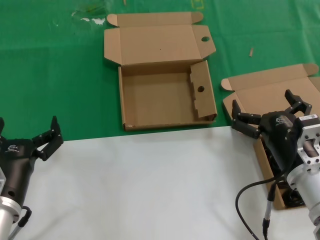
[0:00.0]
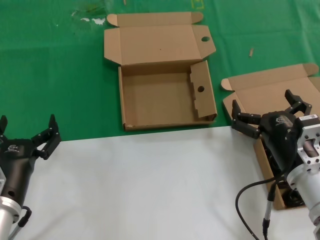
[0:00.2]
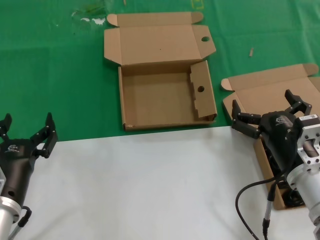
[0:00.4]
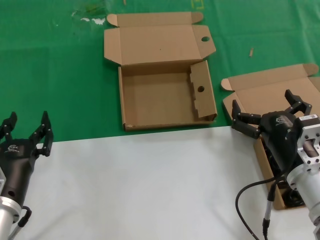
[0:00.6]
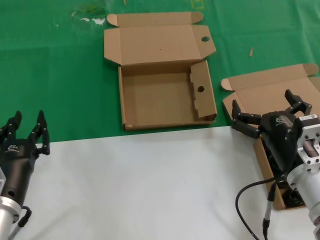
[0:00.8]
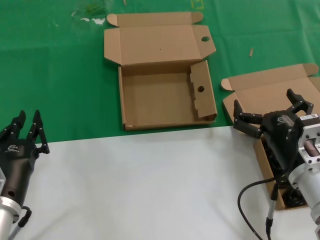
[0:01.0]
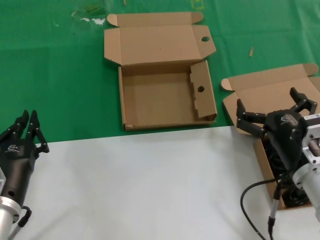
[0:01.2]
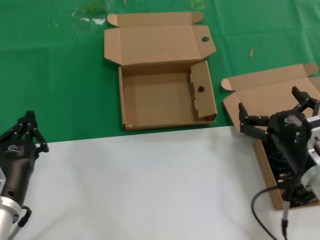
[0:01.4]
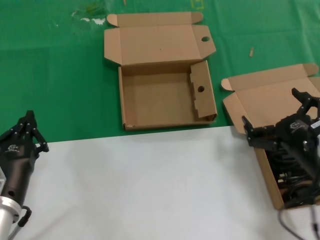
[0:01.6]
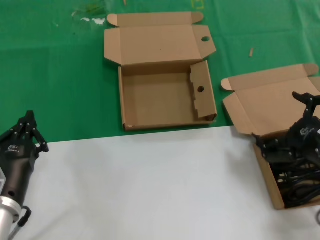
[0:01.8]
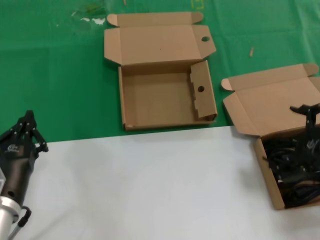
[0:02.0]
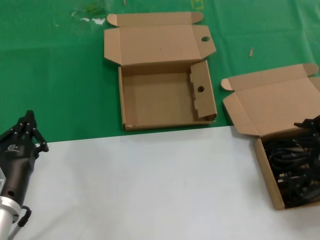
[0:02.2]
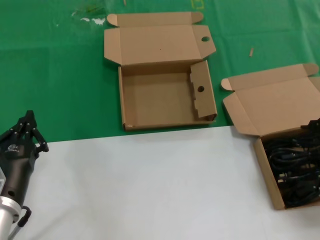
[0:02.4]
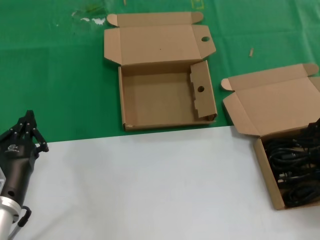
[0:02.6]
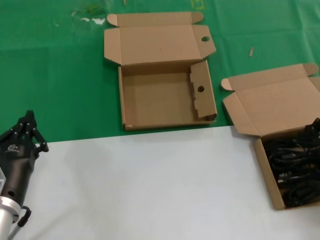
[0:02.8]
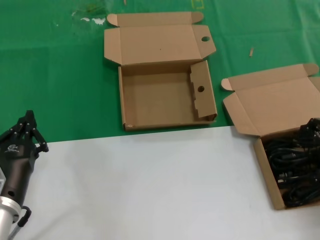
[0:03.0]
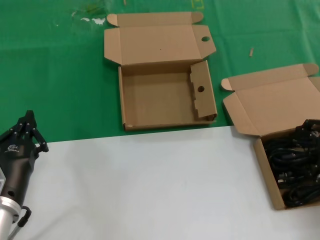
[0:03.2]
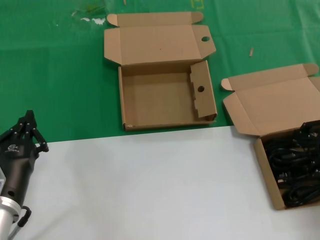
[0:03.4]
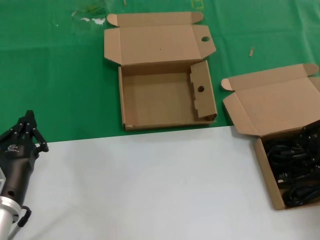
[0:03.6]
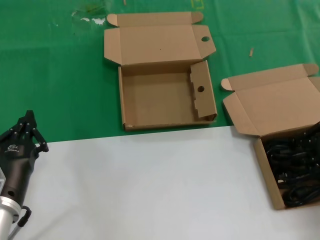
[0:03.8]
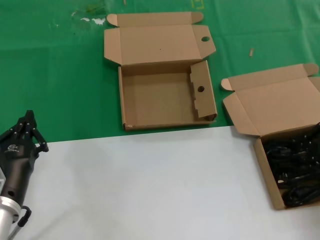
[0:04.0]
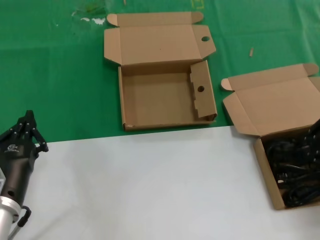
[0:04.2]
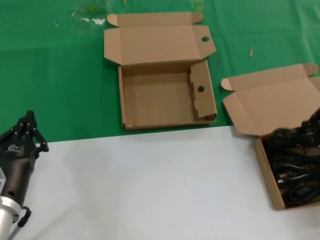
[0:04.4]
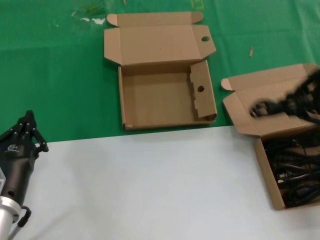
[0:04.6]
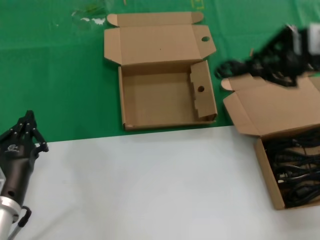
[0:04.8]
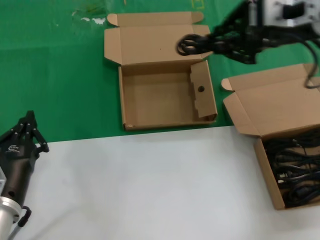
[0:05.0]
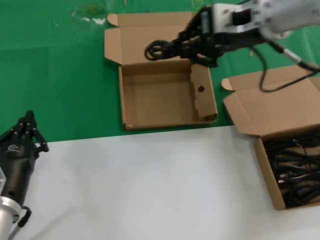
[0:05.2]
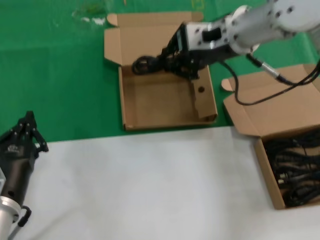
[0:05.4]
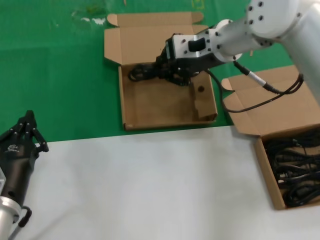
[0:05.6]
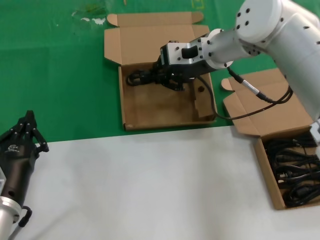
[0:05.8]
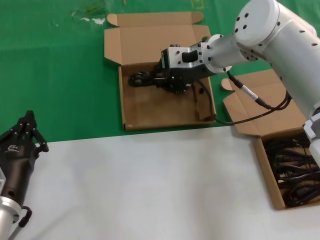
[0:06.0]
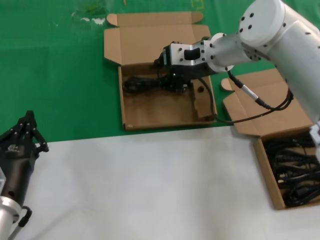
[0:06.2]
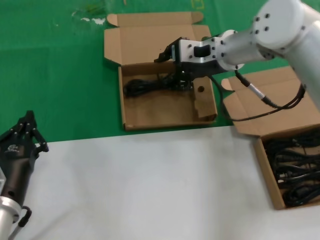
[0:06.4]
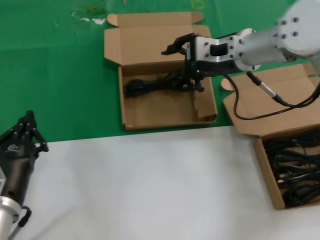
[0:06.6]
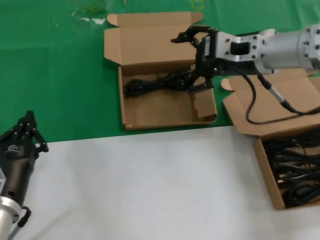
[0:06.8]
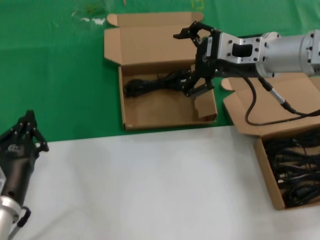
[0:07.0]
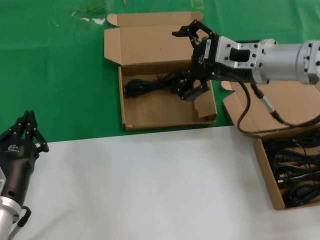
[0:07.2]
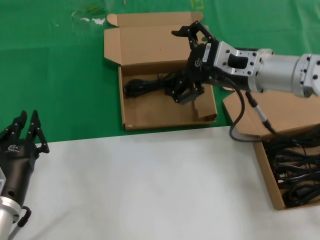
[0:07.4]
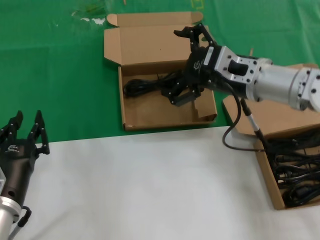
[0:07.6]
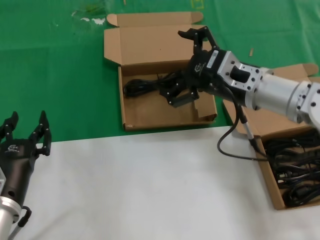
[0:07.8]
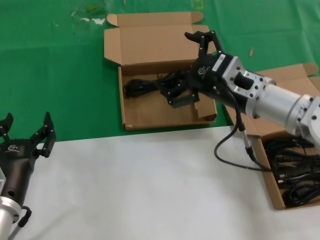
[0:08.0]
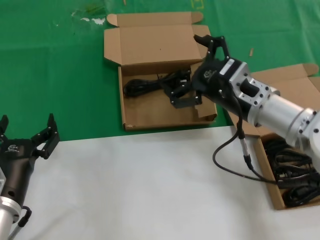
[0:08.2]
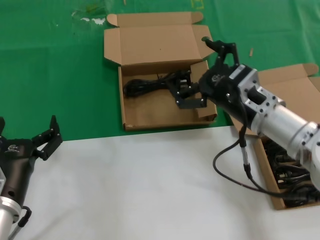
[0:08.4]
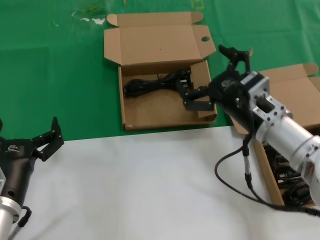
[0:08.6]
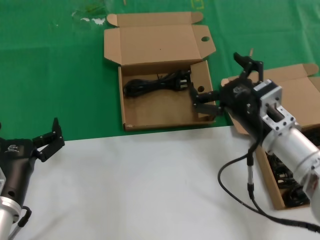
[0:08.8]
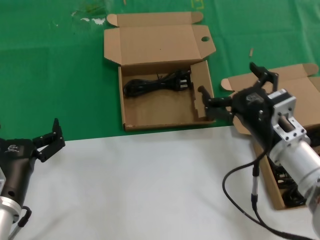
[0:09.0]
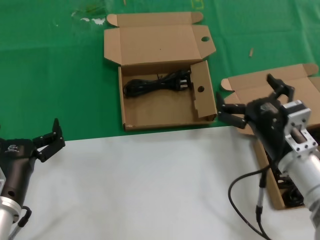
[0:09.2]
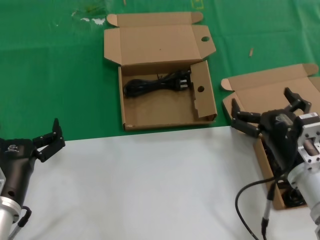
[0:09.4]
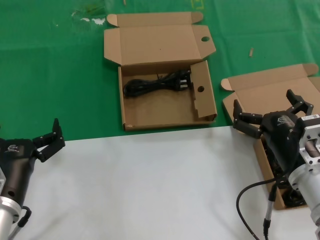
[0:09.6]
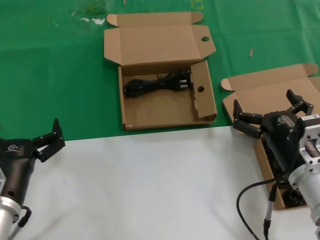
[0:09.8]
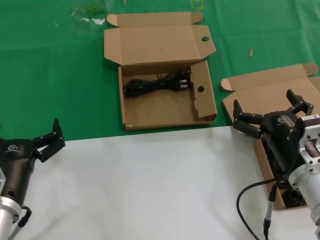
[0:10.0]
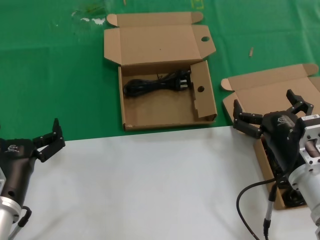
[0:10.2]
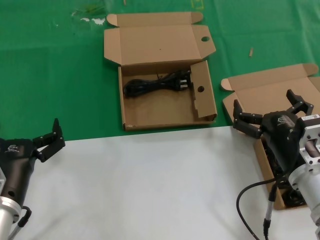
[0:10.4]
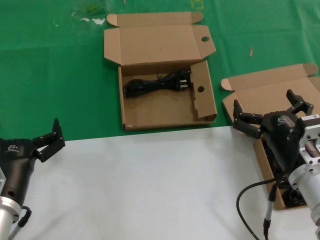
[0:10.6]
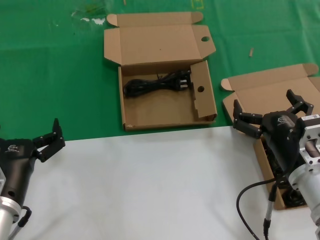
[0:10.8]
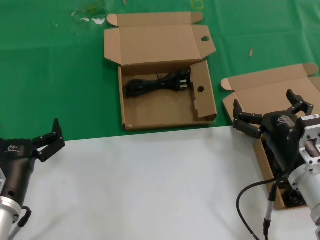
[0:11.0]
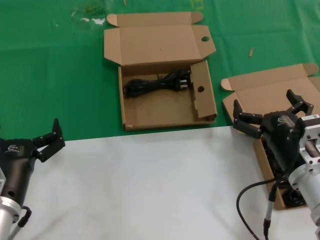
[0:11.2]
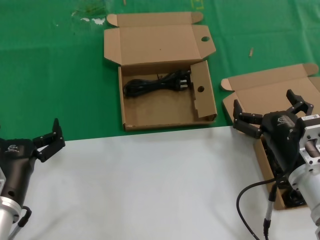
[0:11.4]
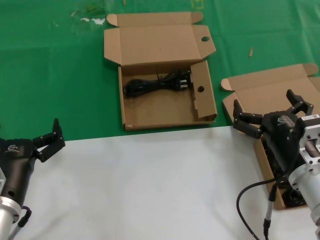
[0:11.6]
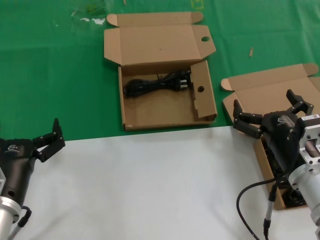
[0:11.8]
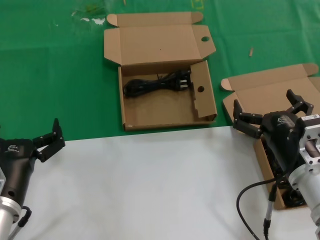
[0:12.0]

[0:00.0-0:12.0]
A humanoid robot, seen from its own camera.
Task of the whole recording: take the parts from the box containing them and put them into an empty box.
Step, 0.0 to 3.8 s: Grasp the data cable.
Step, 4.0 to 6.2 s: Place the data cable in the another box.
0.0 to 1.6 s: The right hand shifts about 5 cm to the right.
1.6 to 3.0 s: The right hand is displaced to the right, upward and forward by about 15 cm.
3.0 to 4.4 s: The right hand moves upward, approximately 5 cm.
4.4 to 6.0 s: The right hand heads to the left and forward, covering roughly 30 cm.
6.0 to 7.6 s: The right hand travels backward and to the right by some 15 cm.
7.6 to 9.0 s: The right hand travels downward and backward by approximately 15 cm.
9.0 to 10.4 s: The right hand ends up some 5 cm from where it was.
10.4 to 12.0 s: The two hands keep their place.

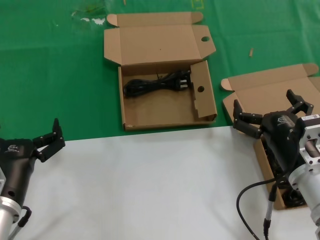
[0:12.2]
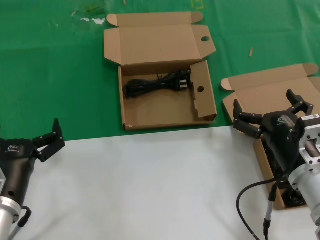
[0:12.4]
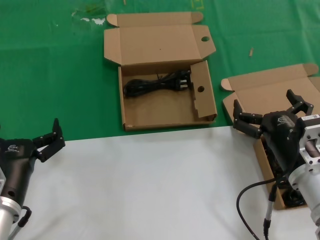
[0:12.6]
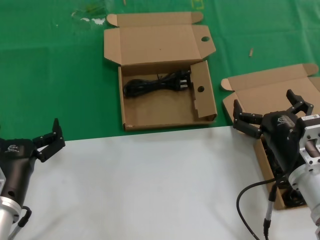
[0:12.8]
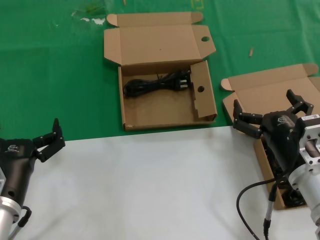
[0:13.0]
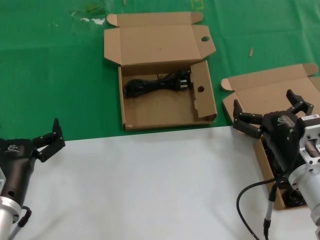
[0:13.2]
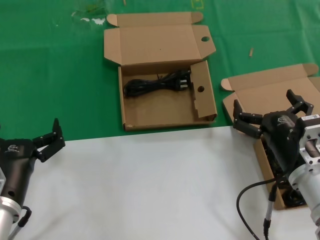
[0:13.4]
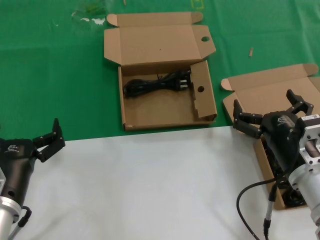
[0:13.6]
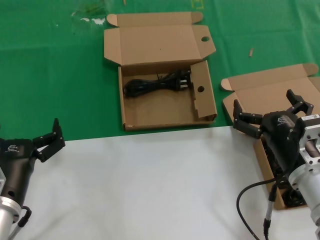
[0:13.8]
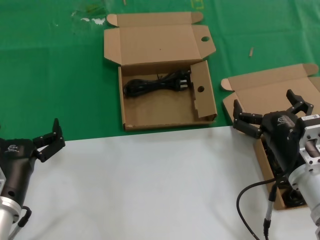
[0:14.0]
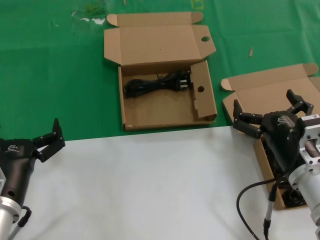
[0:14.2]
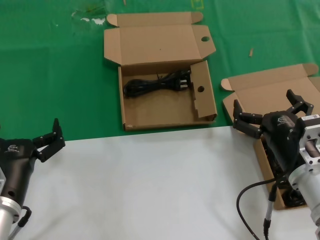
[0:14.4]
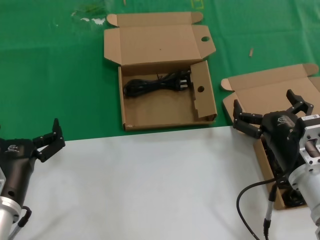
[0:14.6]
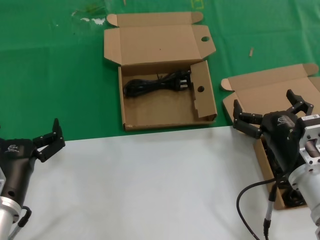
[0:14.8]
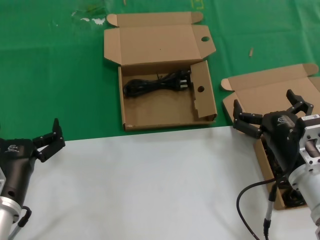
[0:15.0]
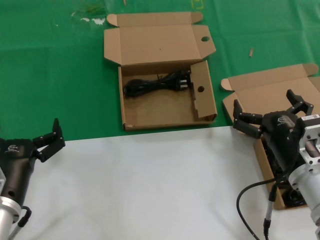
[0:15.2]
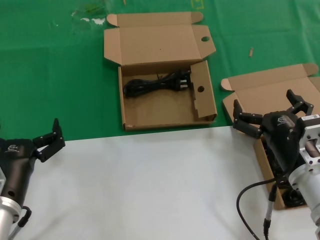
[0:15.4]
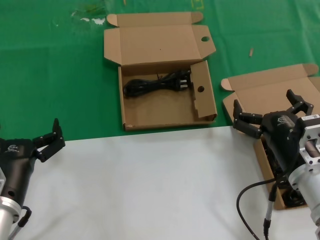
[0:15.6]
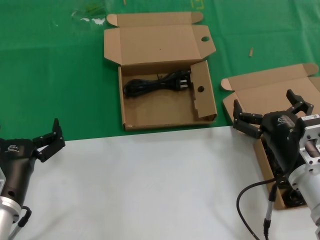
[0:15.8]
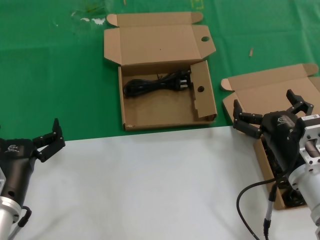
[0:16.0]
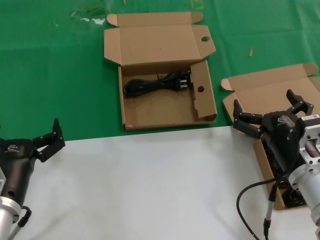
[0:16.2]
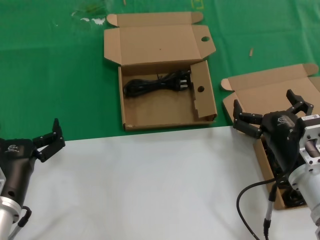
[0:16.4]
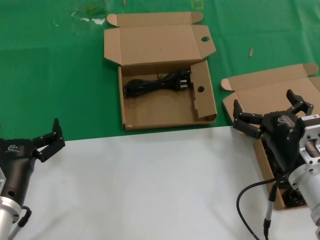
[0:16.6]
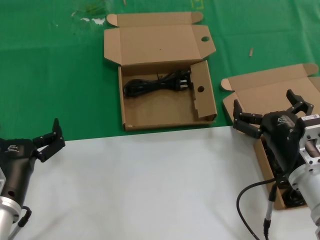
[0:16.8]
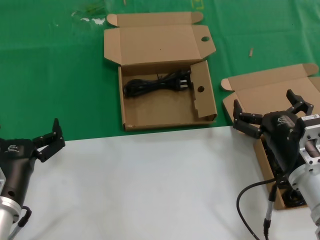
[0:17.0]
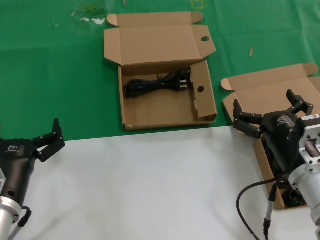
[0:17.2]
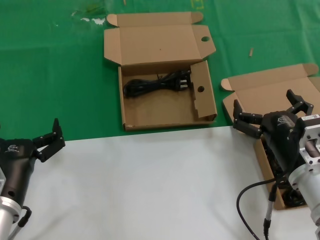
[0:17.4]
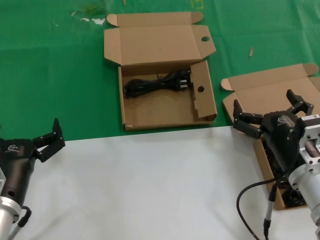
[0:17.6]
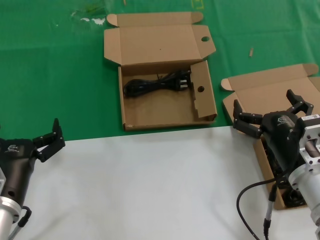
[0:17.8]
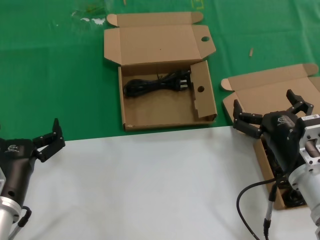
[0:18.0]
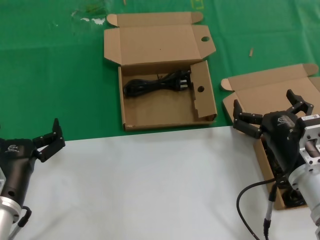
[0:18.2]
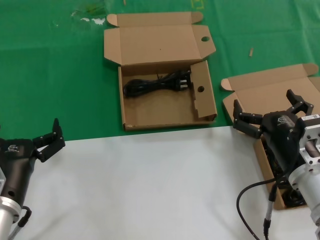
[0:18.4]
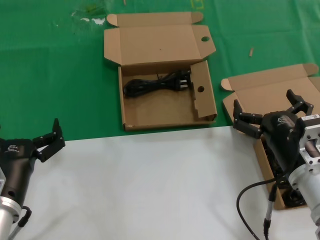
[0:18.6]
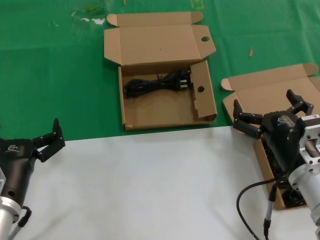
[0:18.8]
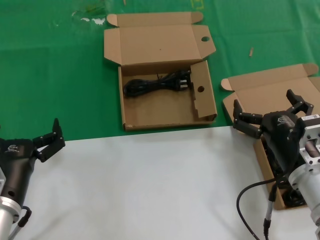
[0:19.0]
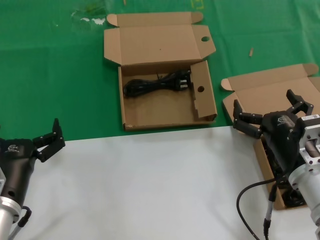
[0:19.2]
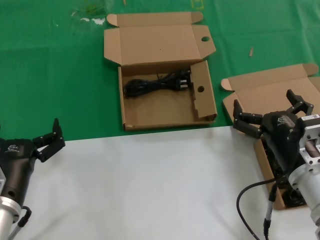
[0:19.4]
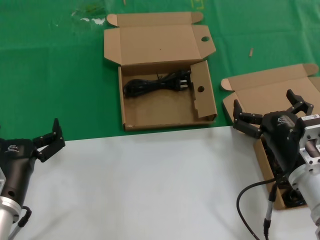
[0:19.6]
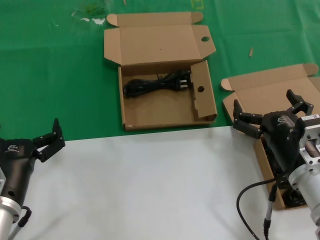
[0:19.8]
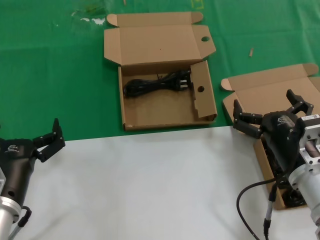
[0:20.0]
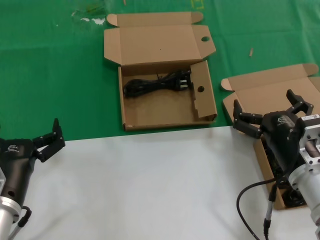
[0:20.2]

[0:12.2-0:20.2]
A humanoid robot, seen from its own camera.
Task of the whole recording: take the parts from the box containing them and put them into an empty box.
12.2 to 20.2 s: The two hands keep their place.

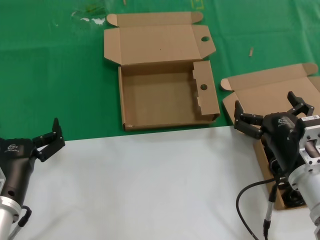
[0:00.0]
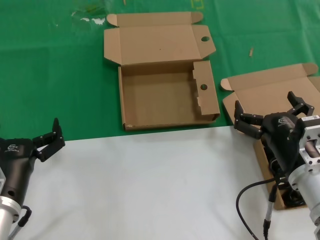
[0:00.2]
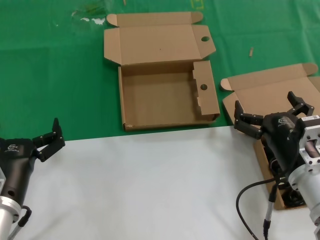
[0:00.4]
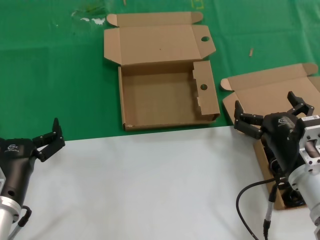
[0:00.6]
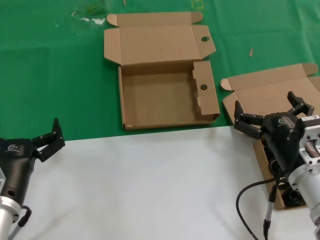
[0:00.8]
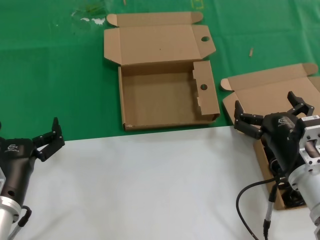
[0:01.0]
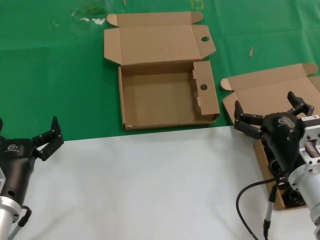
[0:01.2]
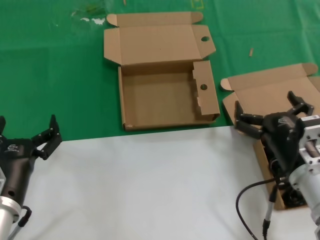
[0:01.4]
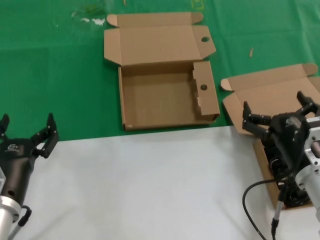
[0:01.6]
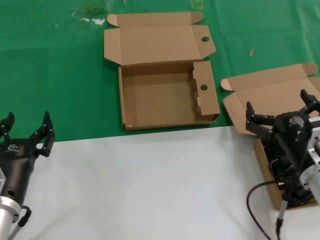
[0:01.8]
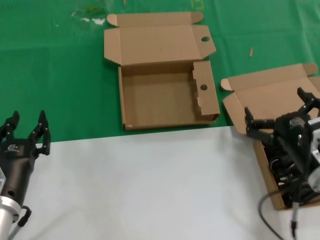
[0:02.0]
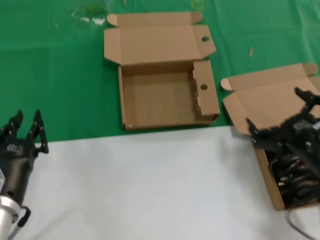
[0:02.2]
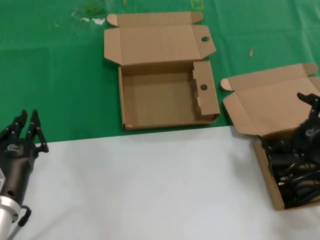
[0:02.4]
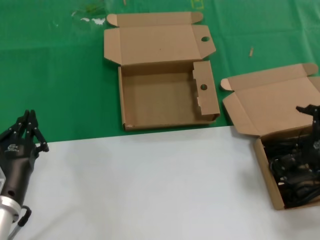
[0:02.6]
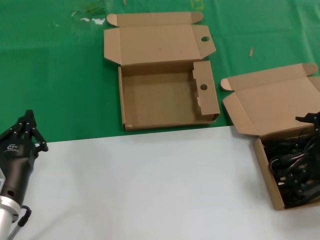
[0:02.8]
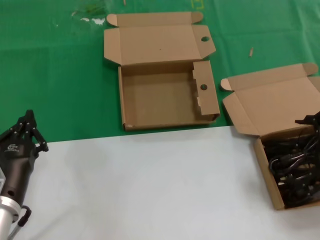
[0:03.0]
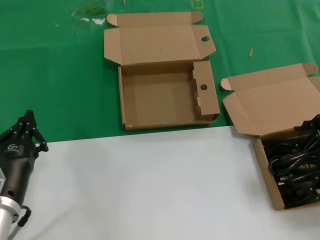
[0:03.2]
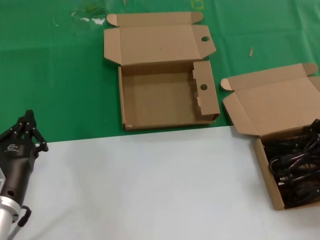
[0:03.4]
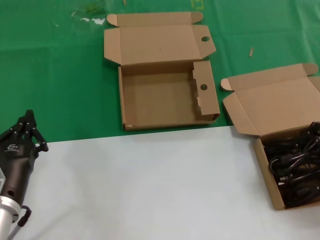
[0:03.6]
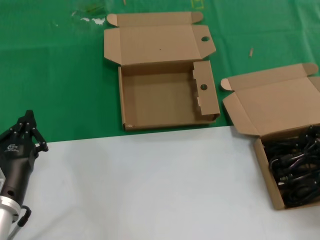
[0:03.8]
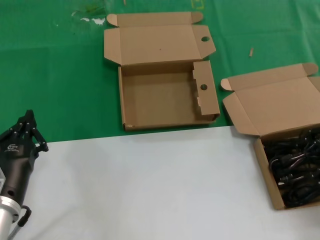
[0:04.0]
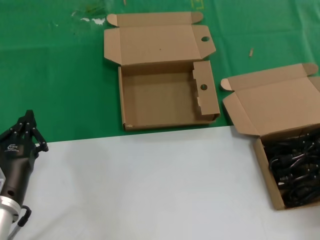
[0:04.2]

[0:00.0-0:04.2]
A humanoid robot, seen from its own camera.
Task of the whole recording: take the parts from the box containing them and put them into an empty box.
0.0 to 1.4 s: Both hands stay put.
1.4 to 2.8 s: The right hand shifts about 15 cm to the right and upward.
2.8 to 4.2 s: The right hand goes roughly 5 cm forward.
